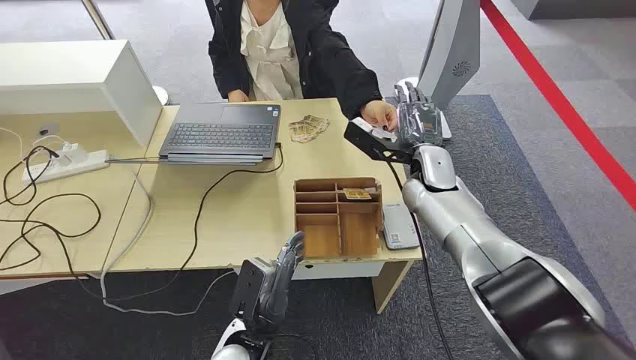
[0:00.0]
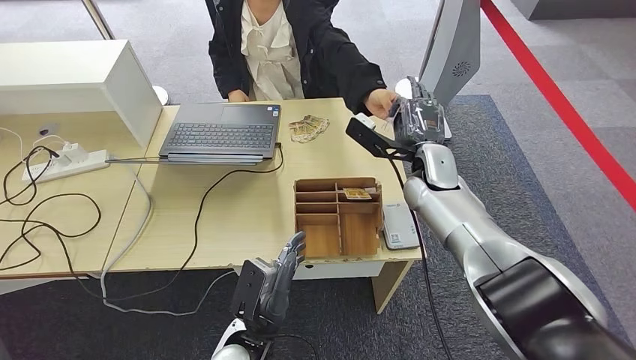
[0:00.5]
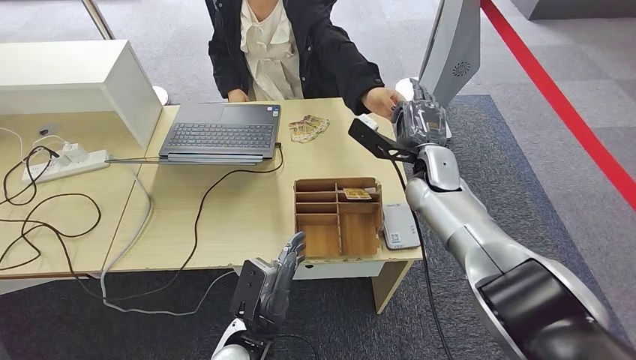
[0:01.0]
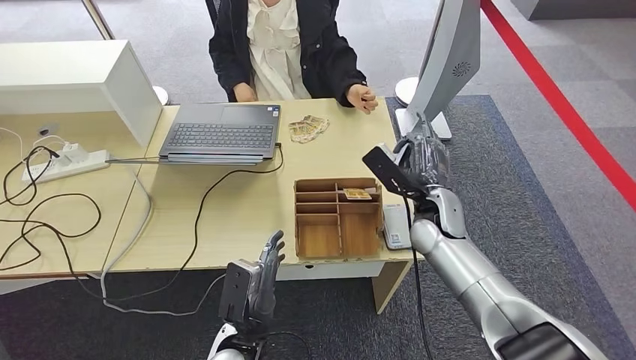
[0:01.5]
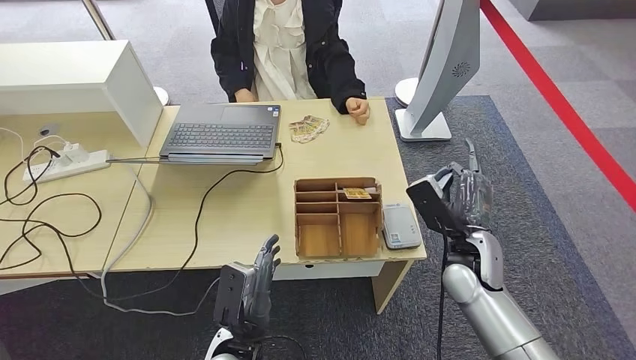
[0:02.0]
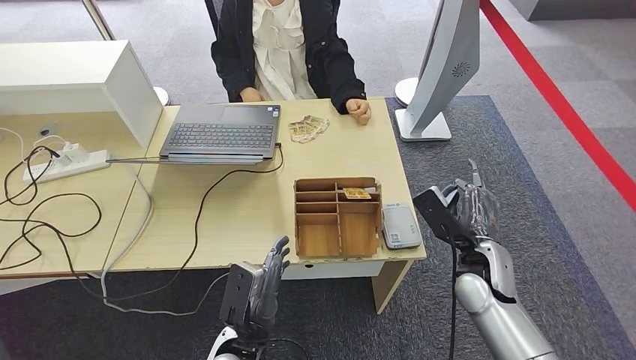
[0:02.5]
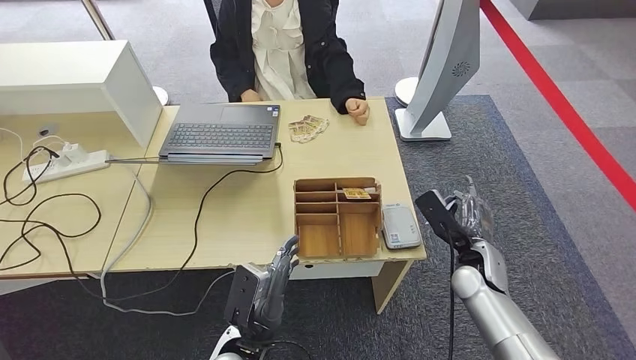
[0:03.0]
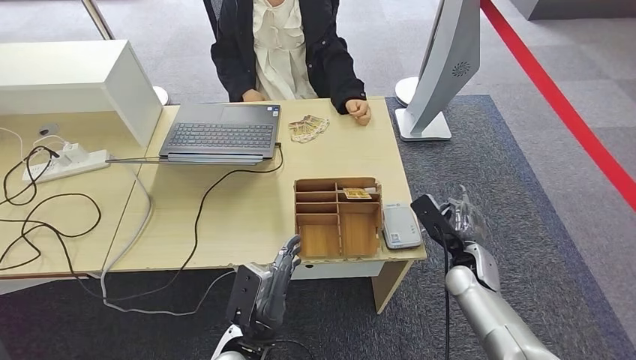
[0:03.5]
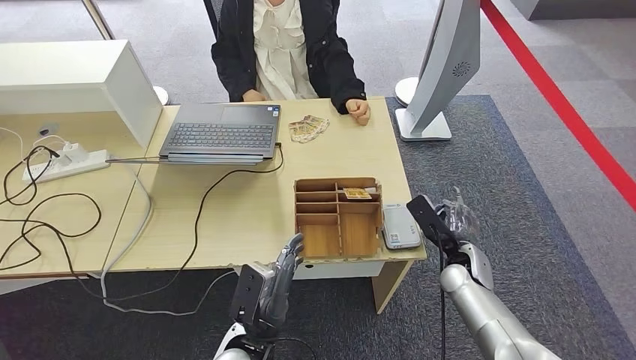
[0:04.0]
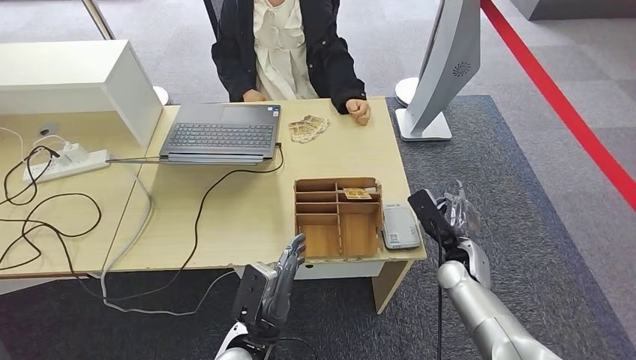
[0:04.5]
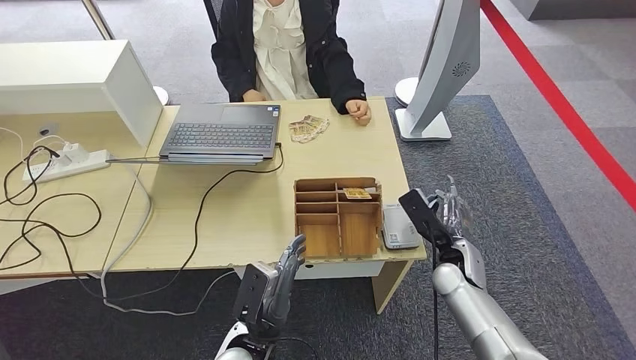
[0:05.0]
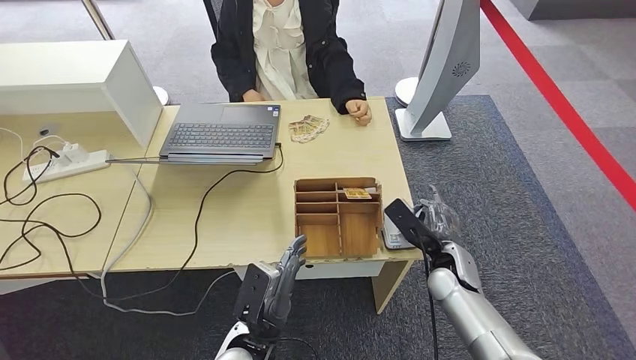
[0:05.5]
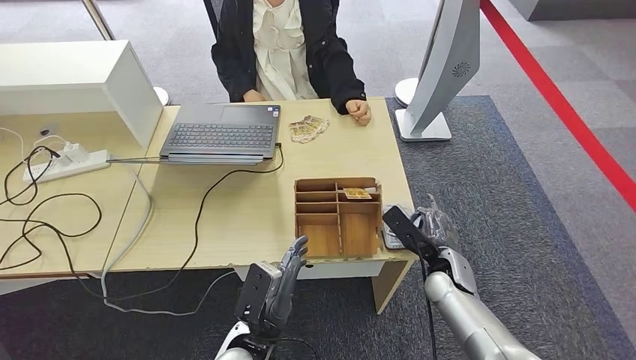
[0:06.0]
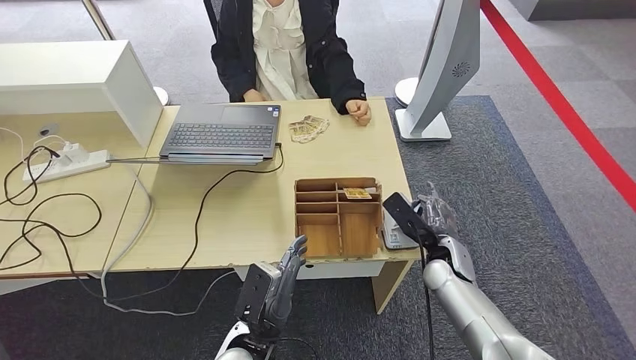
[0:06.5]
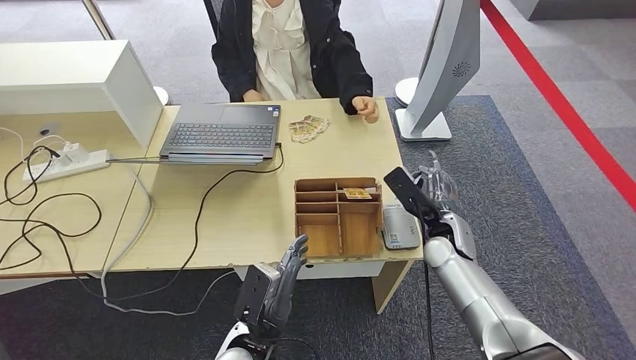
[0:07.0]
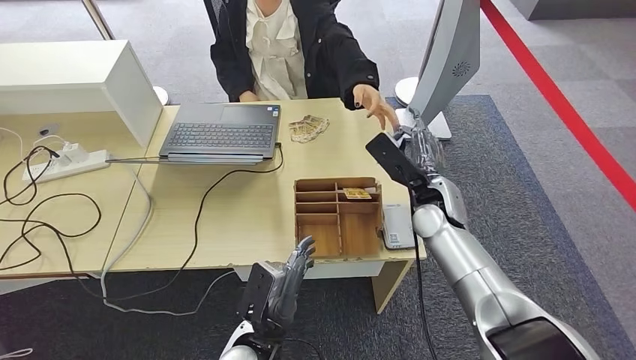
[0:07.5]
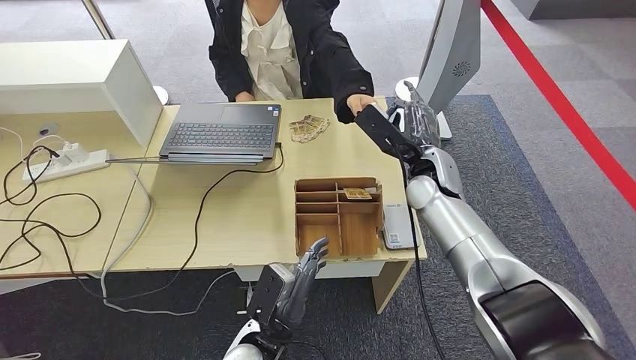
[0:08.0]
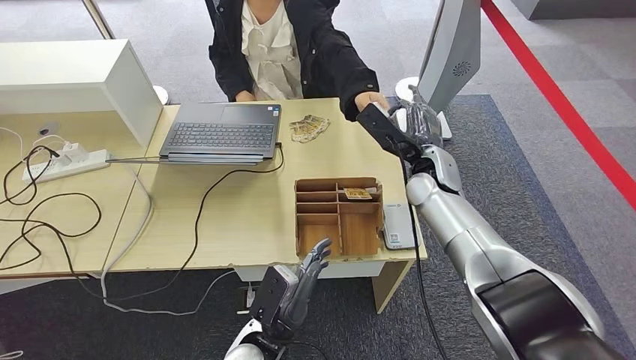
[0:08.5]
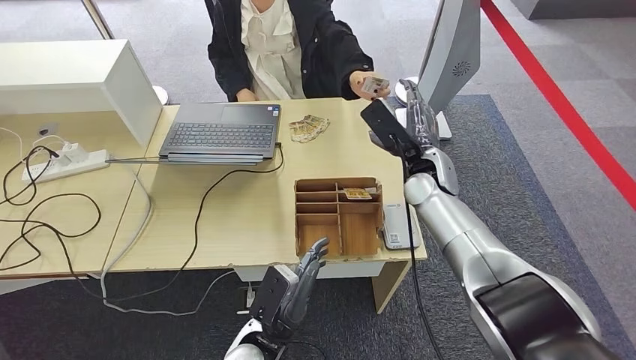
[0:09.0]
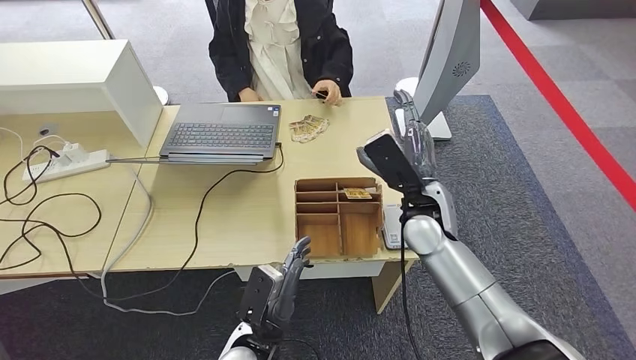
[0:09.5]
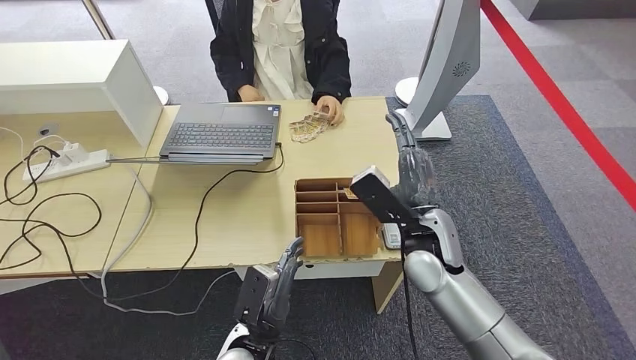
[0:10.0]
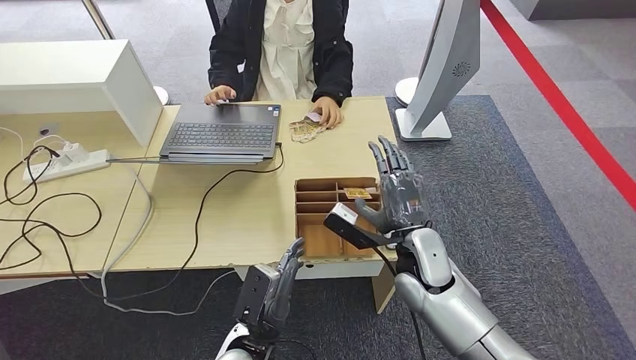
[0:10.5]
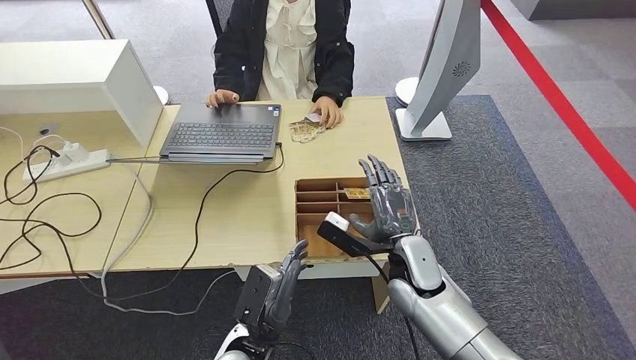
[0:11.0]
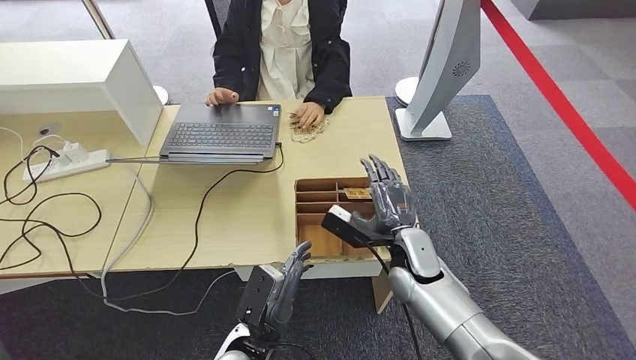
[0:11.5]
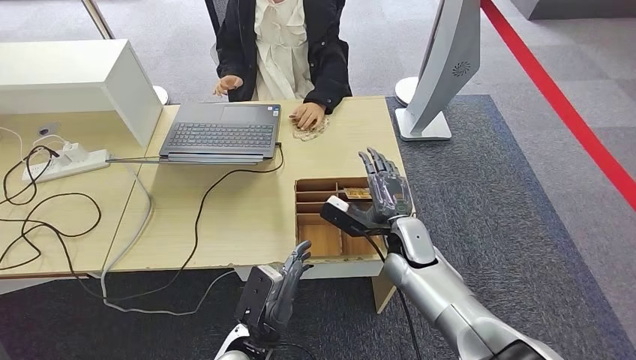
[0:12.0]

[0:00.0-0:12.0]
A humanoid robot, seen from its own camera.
Step, 0:00.0 to 0:01.5: Take the ID card from the person's hand.
Step, 0:02.0 to 0:07.5: Place the ID card on the card reader.
Step, 0:08.0 to 0:10.5: Hand the ID card to the person.
0:02.0 to 0:04.0: The right hand goes about 10 cm downward.
0:04.0 to 0:06.0: The hands make only small movements.
0:06.0 to 0:08.0: The right hand shifts about 20 cm upward and forward.
0:08.0 to 0:10.0: The right hand is displaced backward by approximately 10 cm.
0:10.0 to 0:12.0: The right hand heads downward, covering roughly 10 cm.

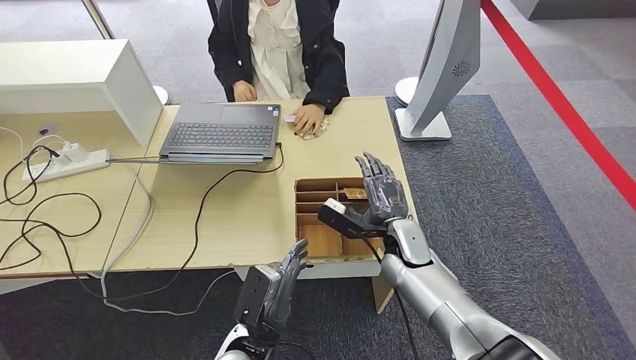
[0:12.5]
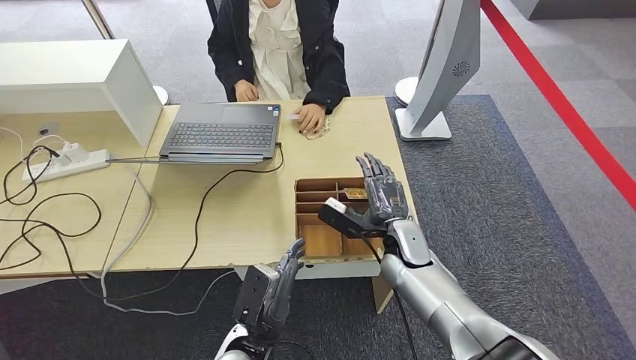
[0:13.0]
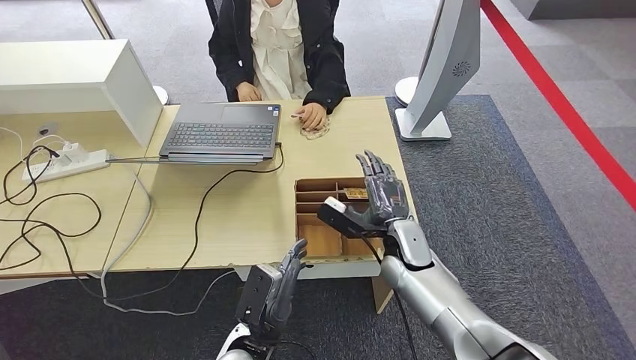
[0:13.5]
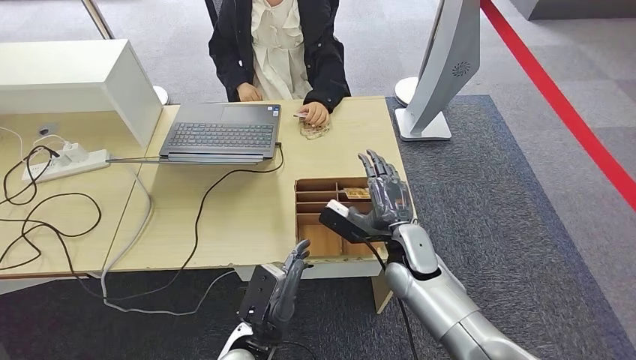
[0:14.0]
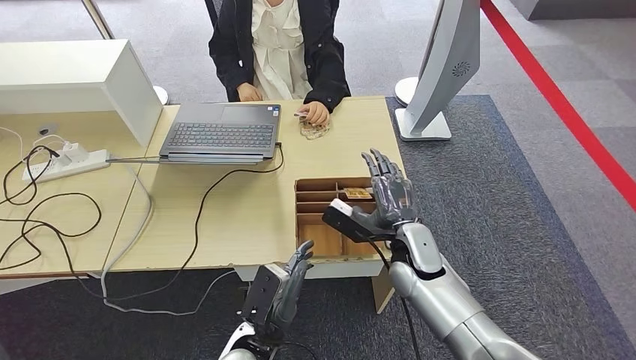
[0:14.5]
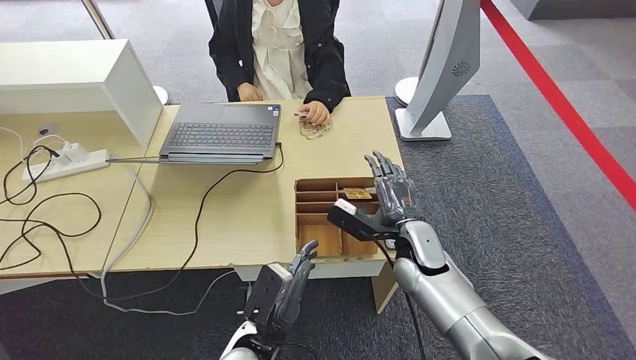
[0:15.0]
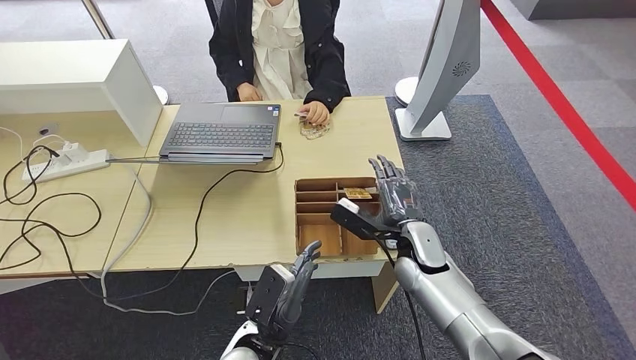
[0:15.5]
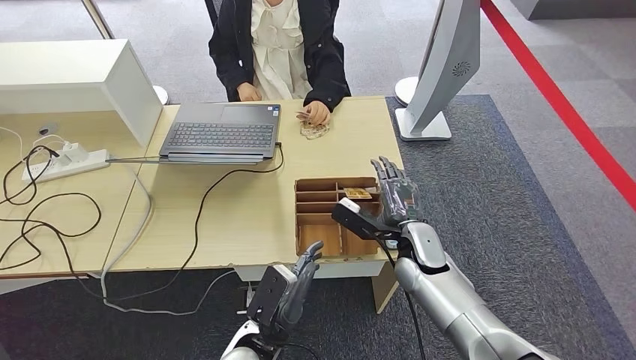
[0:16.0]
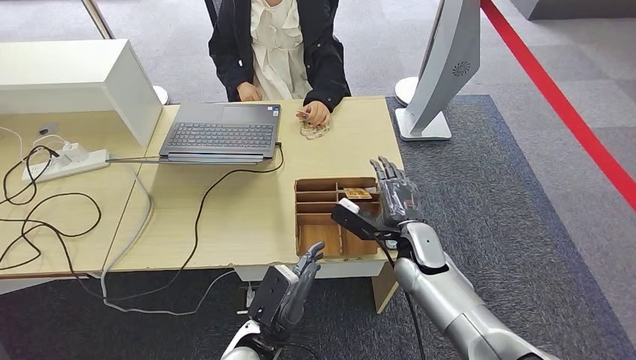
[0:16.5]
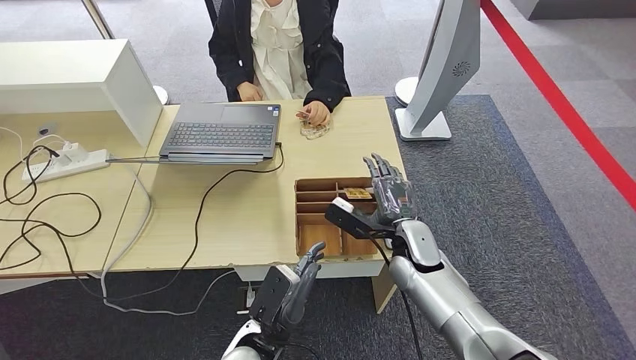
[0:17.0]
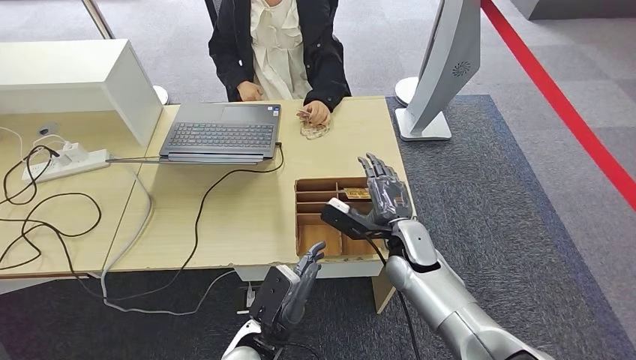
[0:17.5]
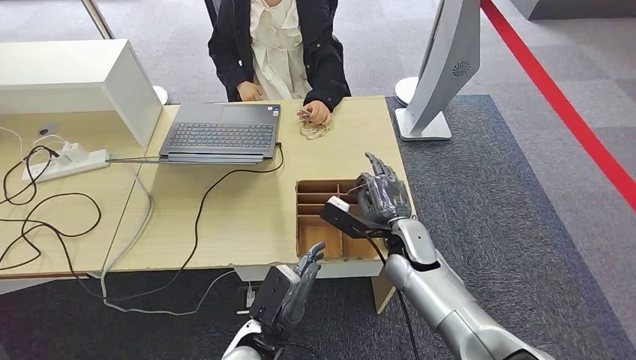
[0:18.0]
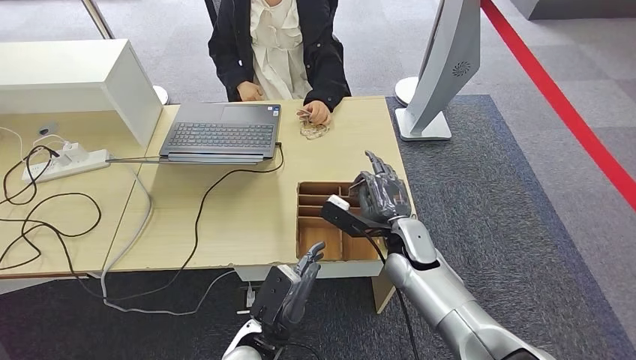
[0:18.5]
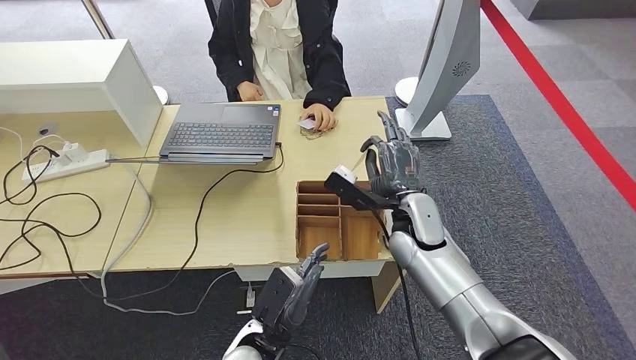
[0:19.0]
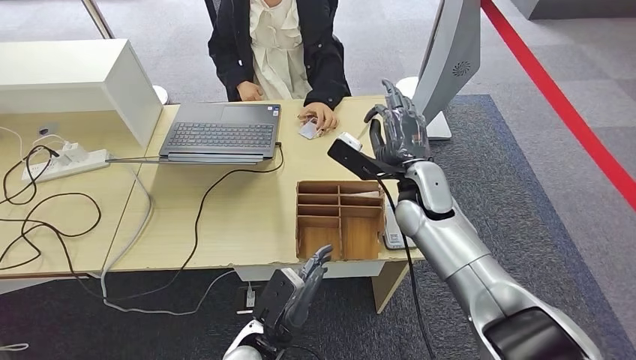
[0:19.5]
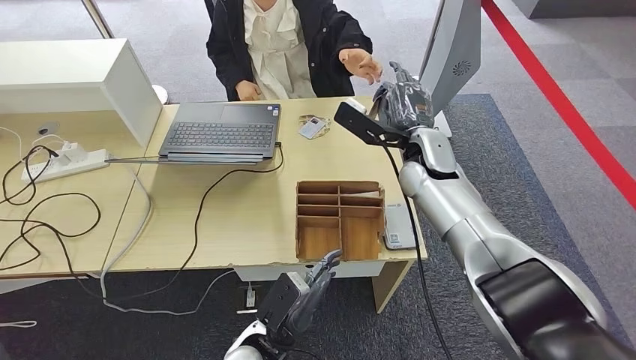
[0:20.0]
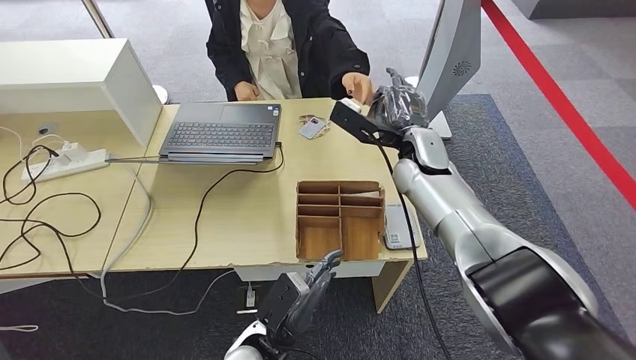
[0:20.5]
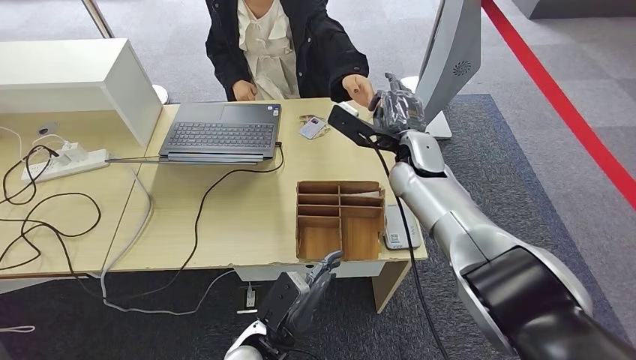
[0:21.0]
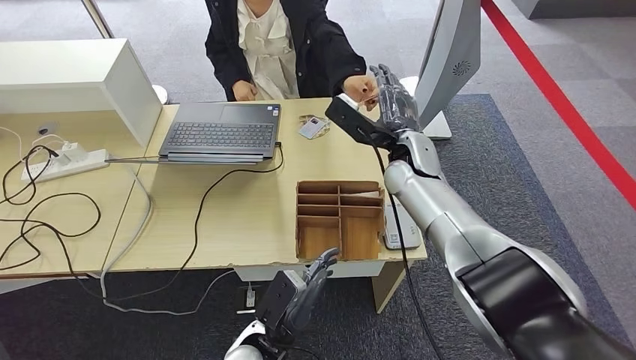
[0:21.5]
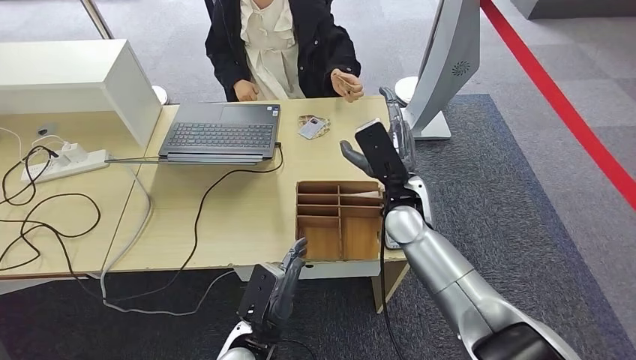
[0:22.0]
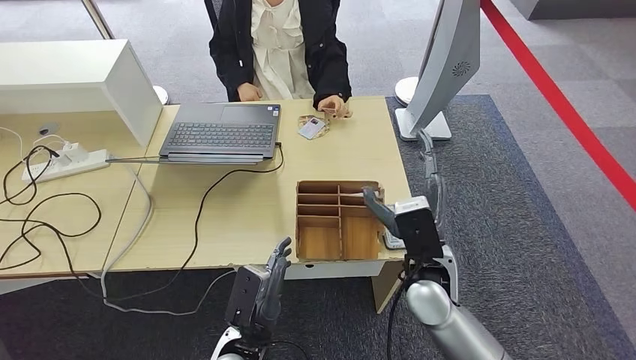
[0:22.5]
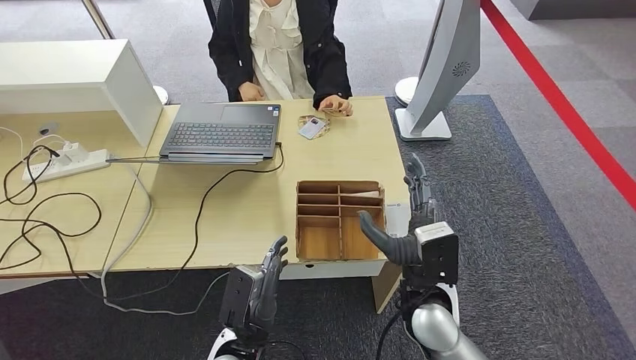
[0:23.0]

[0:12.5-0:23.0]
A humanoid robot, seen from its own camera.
Step, 0:17.5 to 0:19.5: Pick up the room key from the key card box.
Step, 0:20.0 to 0:23.0: Hand the room key to the person.
0:12.5 to 0:16.5: There are only small adjustments of the hands.
0:16.5 to 0:19.0: The right hand heads upward, covering some 5 cm.
0:19.0 to 0:21.0: The right hand shifts some 10 cm forward and upward.
0:21.0 to 0:23.0: The right hand shifts about 25 cm backward and downward.
